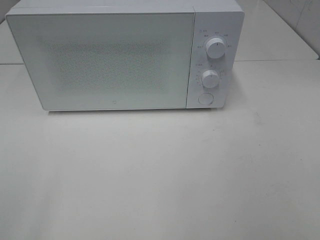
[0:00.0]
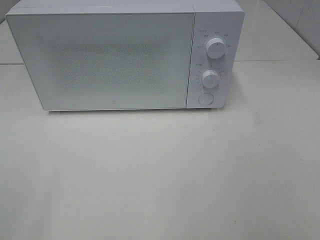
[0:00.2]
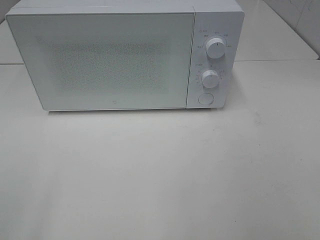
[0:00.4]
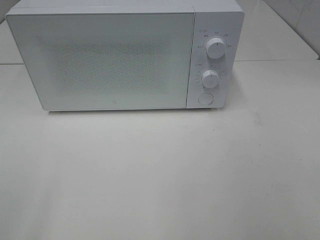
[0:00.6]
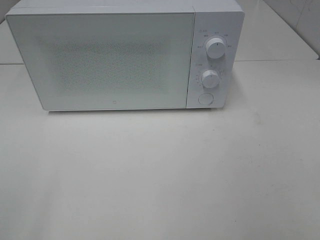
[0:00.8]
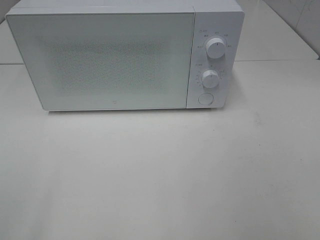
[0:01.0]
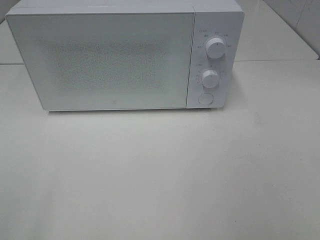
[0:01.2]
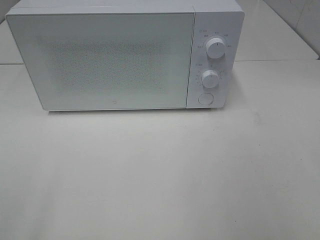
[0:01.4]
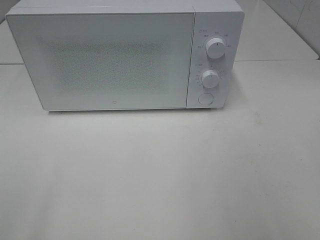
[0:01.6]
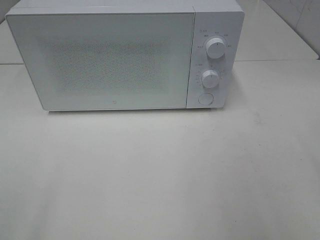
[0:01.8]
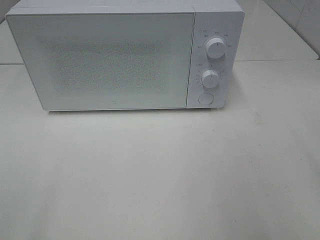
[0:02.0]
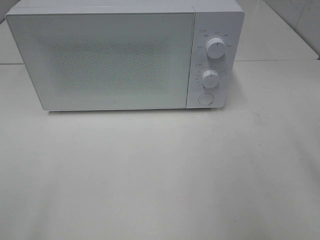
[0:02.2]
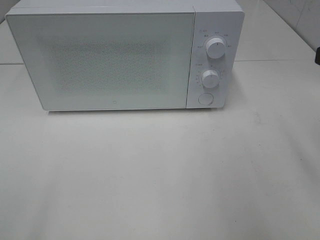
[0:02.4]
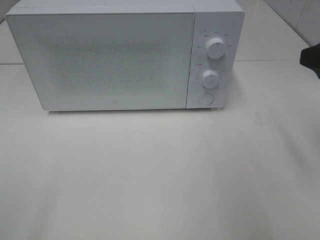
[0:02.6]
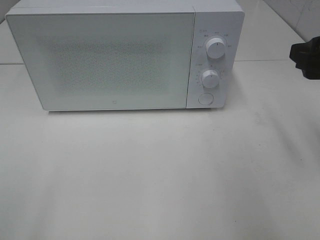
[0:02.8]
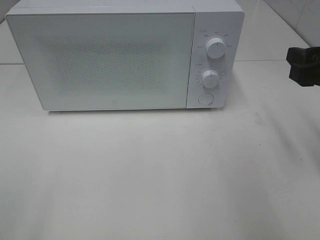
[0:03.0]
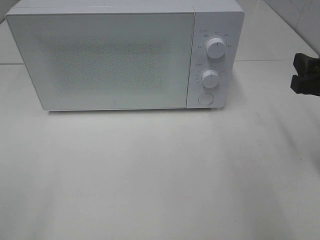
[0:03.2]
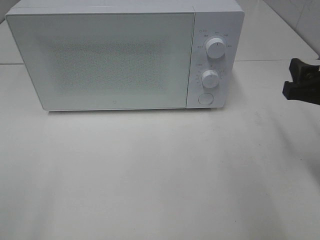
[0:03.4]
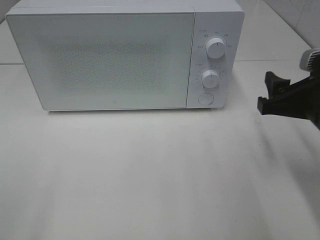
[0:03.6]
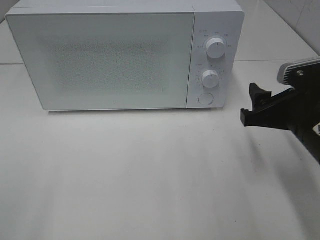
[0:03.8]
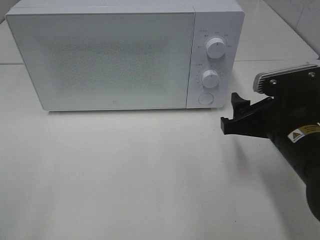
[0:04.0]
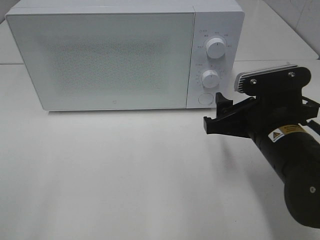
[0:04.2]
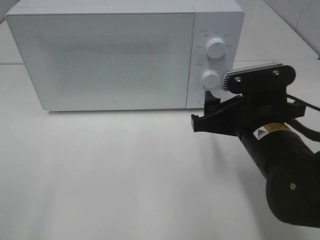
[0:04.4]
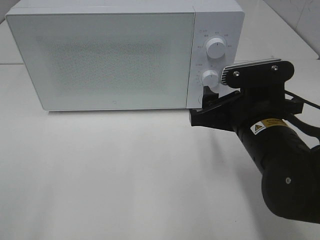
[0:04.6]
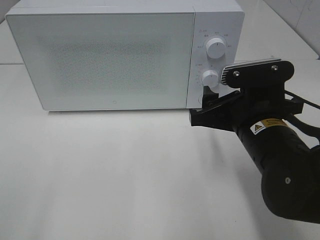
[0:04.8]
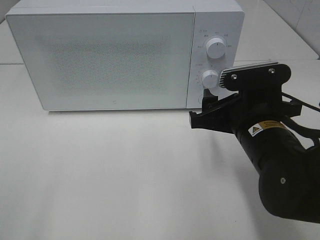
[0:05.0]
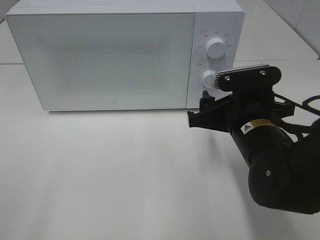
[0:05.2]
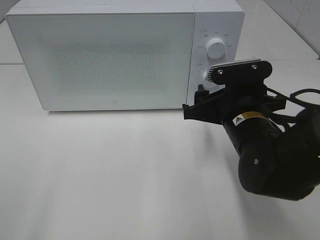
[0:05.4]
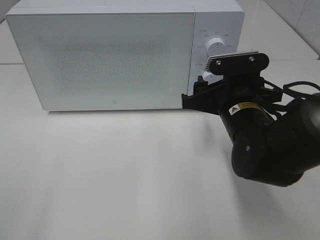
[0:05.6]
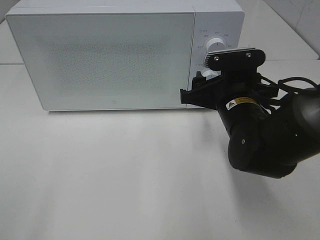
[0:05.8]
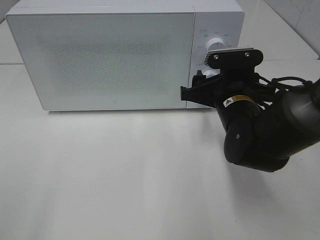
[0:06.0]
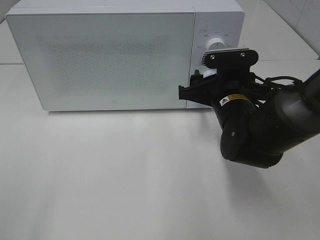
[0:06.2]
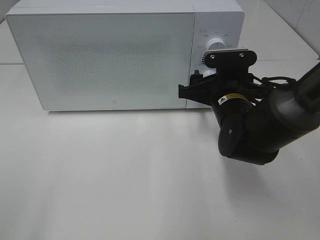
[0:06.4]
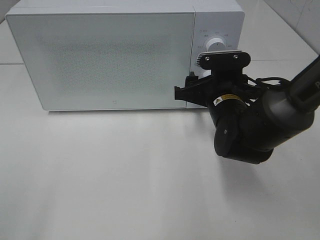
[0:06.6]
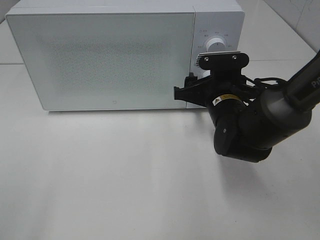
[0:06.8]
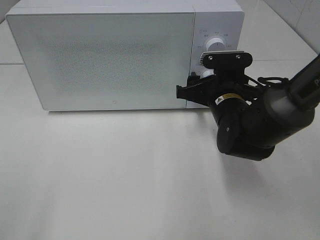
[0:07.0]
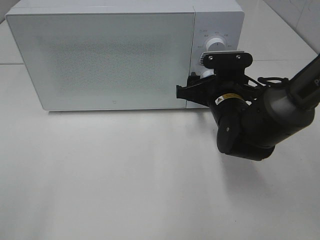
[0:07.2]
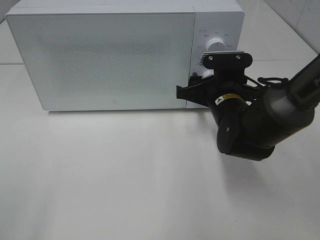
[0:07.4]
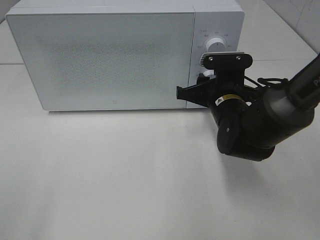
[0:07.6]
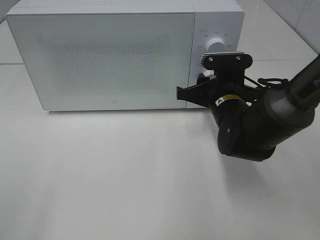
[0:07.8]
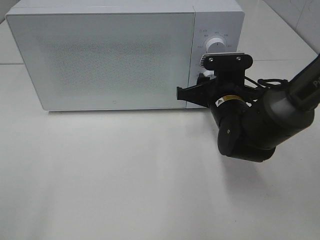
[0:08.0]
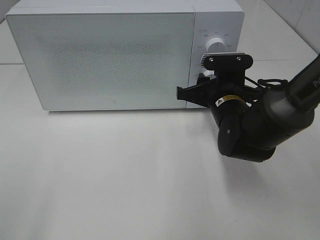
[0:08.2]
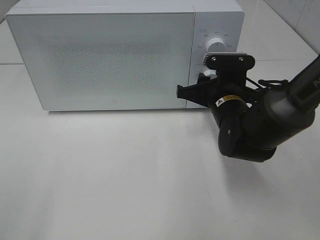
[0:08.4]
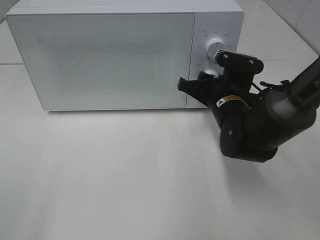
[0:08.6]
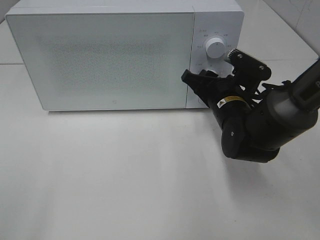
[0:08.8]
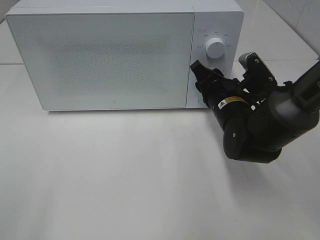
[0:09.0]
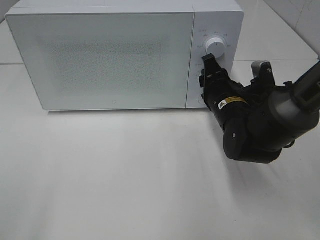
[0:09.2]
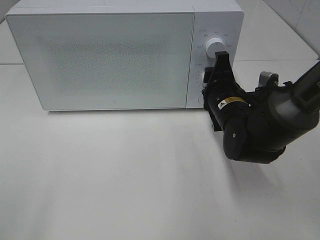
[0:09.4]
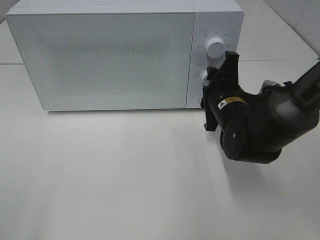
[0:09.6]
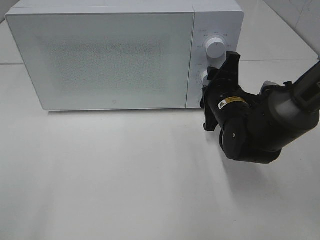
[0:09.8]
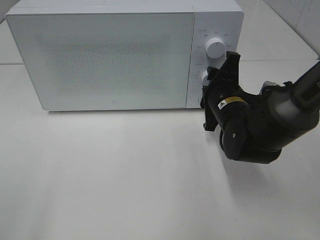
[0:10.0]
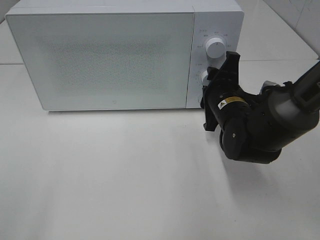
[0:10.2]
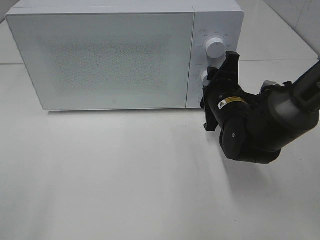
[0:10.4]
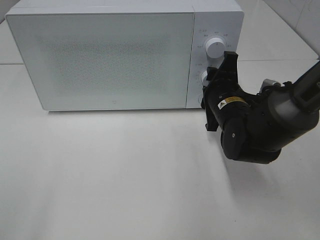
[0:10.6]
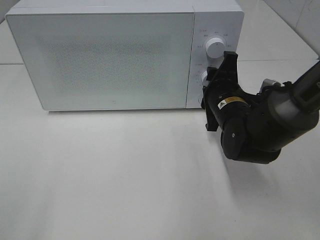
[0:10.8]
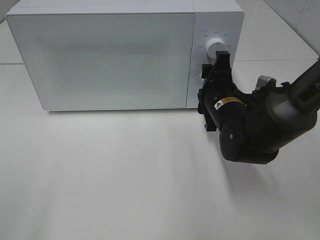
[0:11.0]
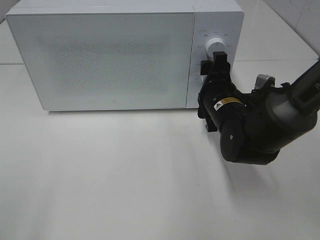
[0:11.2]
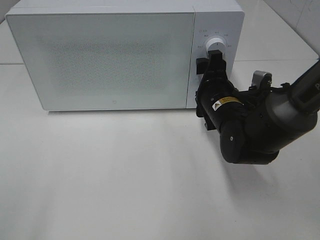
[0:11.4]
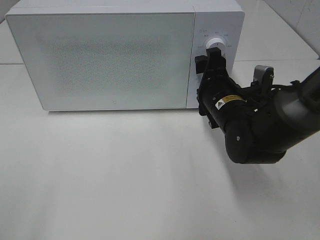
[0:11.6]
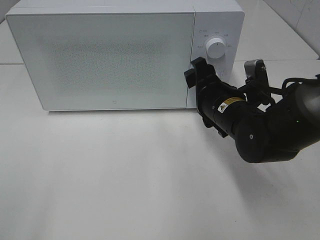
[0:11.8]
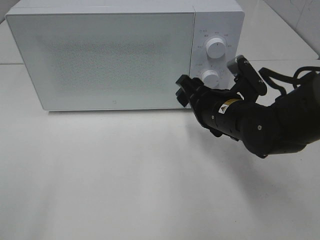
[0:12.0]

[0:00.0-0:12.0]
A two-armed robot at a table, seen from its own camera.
Task of the whole recording: Heat the burger.
Step, 0:00.0 to 0:10.8: Right hand: twist timer button.
0:01.6 to 0:03.0: The right gripper travels forward and downward by some 15 cm.
0:03.0 to 0:04.4: The right gripper goes approximately 15 cm to the left and downward.
0:04.4 to 0:06.0: The right gripper heads forward, covering about 10 cm.
0:06.0 to 0:07.6: The grippers move only a little.

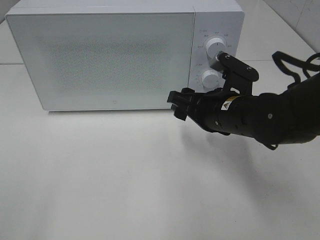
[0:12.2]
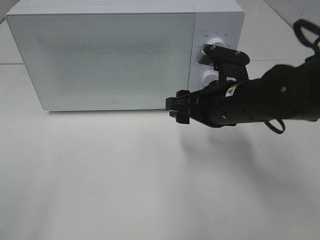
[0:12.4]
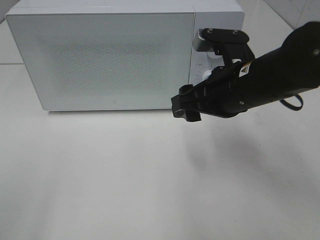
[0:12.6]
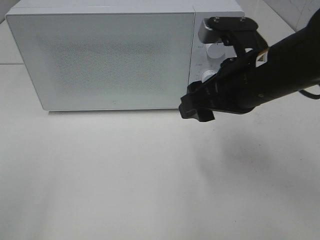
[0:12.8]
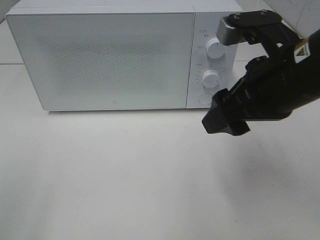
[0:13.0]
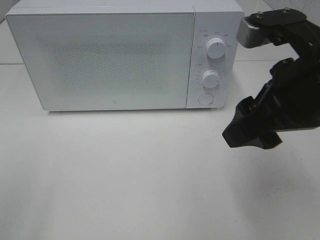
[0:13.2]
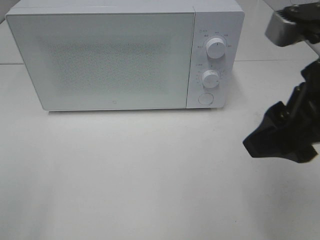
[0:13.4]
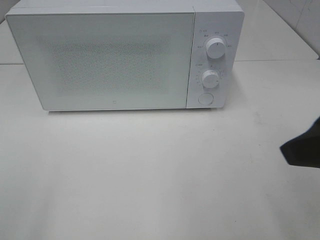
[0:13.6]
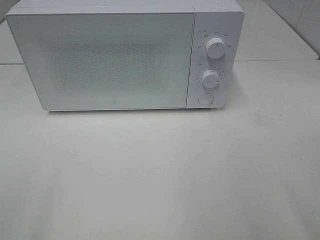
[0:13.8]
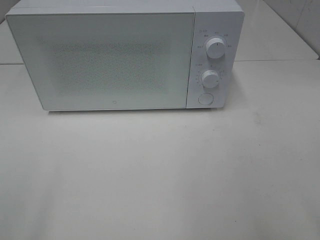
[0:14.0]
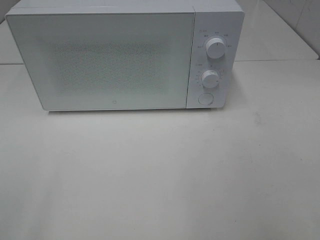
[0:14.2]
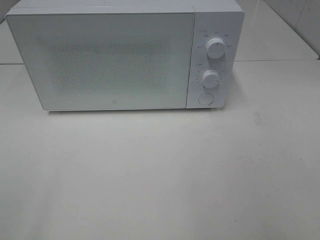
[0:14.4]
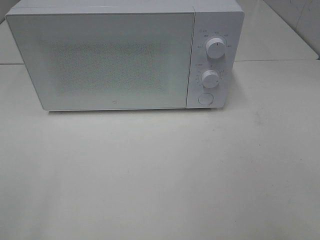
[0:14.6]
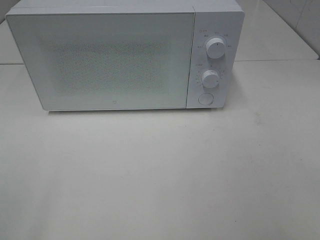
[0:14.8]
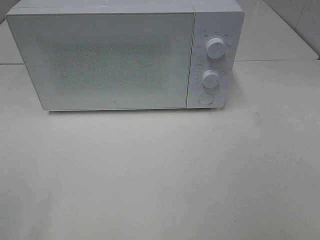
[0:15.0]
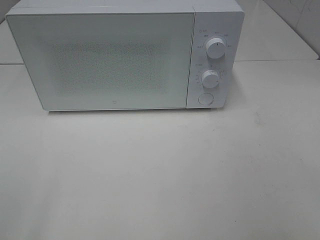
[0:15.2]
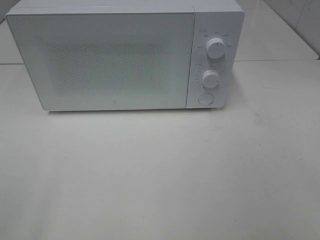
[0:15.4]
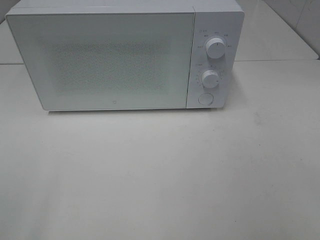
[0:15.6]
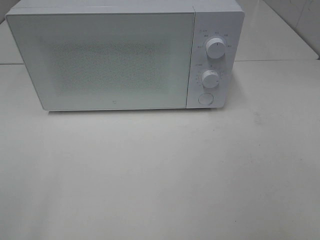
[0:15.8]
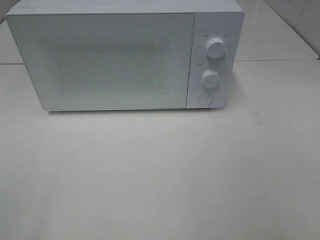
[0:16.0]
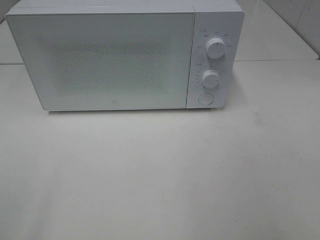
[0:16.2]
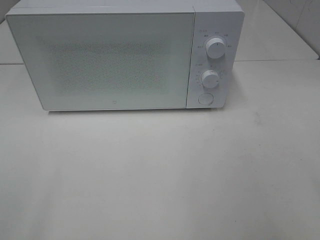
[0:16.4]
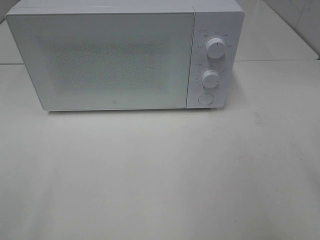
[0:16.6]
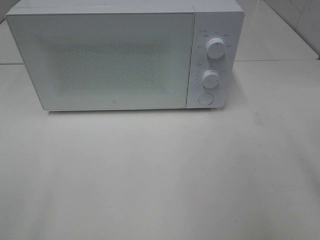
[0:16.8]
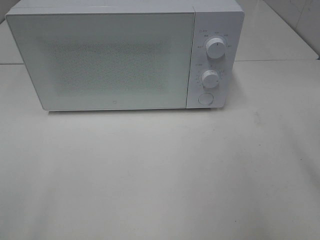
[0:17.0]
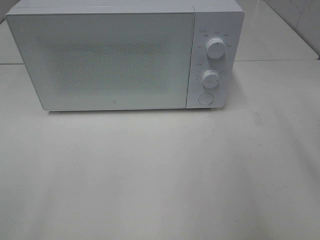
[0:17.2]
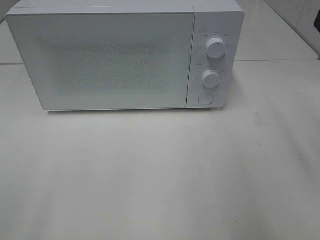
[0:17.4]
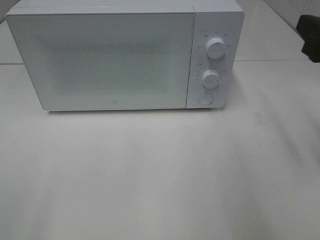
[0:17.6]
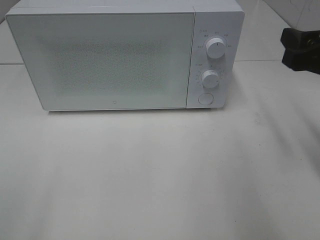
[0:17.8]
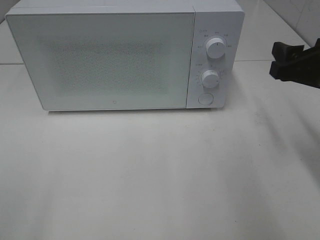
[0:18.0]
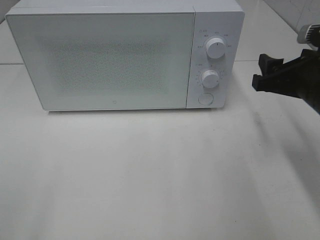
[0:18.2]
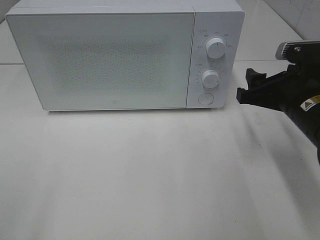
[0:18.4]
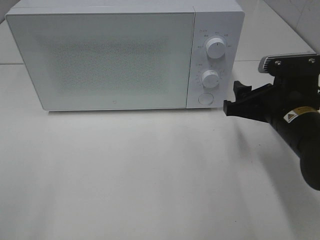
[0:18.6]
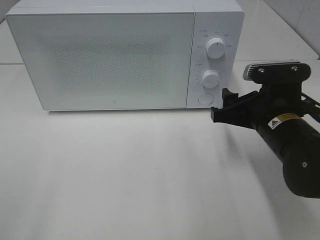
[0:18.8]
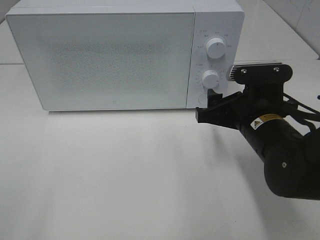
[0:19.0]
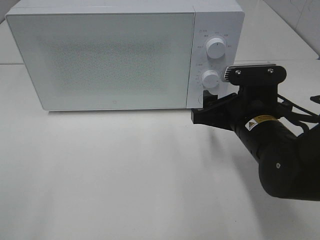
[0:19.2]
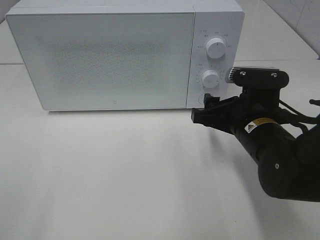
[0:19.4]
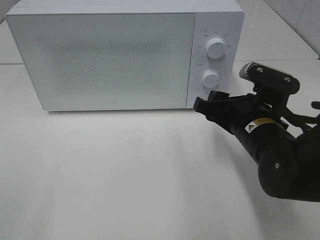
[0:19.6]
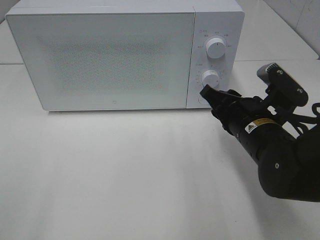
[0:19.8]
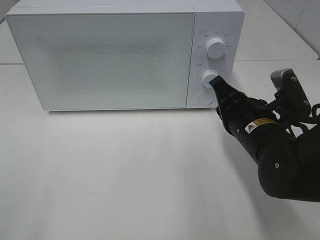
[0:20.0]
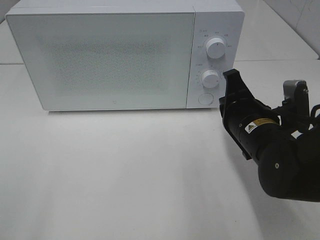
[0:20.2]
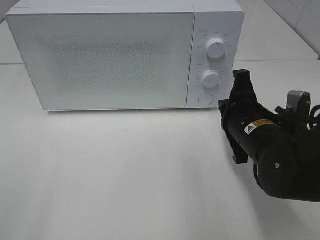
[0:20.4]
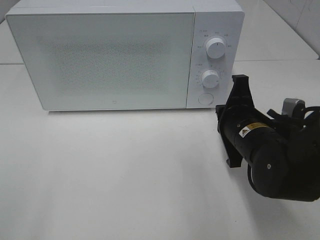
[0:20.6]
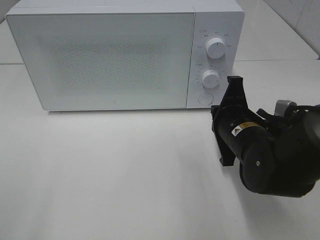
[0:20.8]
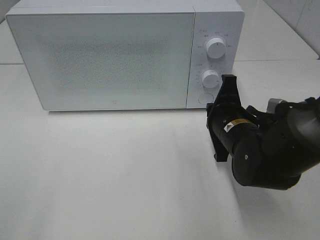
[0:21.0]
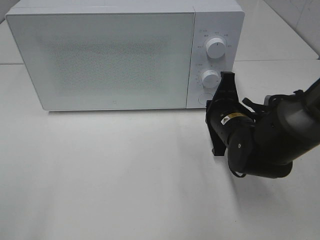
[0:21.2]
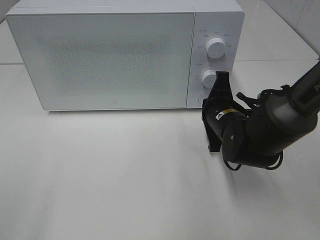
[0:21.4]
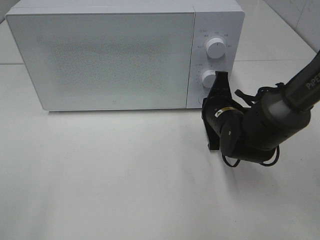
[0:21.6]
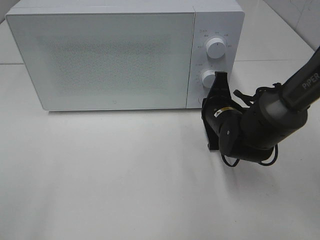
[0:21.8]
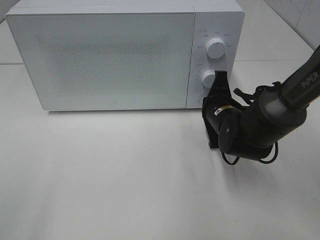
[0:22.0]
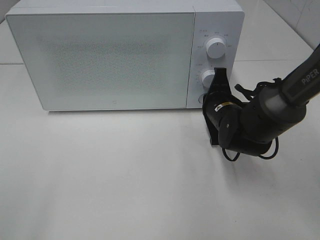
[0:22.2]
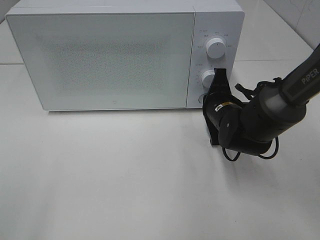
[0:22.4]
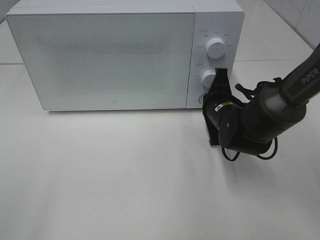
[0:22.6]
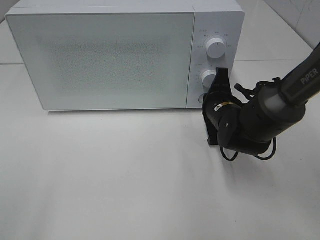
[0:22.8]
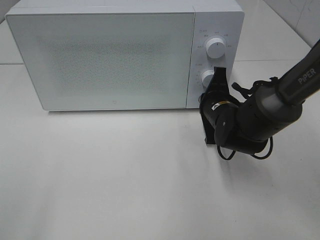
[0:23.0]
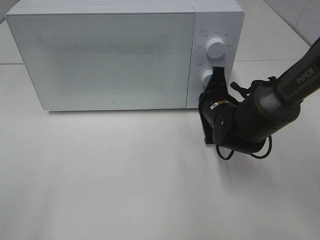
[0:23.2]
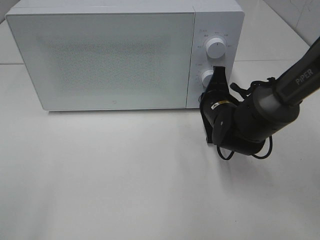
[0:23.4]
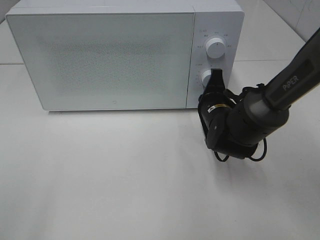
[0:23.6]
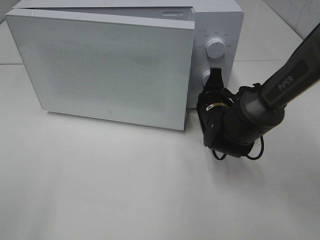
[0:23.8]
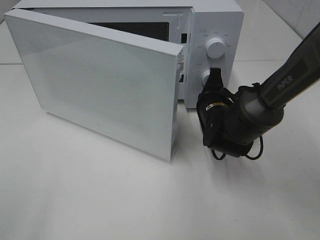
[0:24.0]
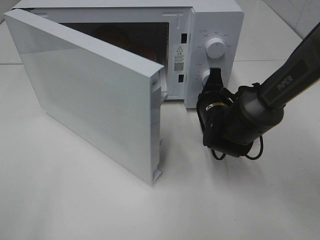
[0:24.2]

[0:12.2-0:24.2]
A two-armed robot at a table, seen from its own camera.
Task of the whole recording: Heat the burger.
0:12.2 to 0:13.8: The right gripper is displaced backward, upward and to the right by approximately 30 cm.
0:16.6 to 0:18.2: The right gripper heads forward and downward, covering about 20 cm.
0:18.2 to 0:19.8: The right gripper goes some 10 cm to the left and downward, and closes.
0:19.8 to 0:21.2: The right gripper moves roughly 5 cm, and closes.
0:21.2 to 0:22.6: The right gripper changes place by about 5 cm.
